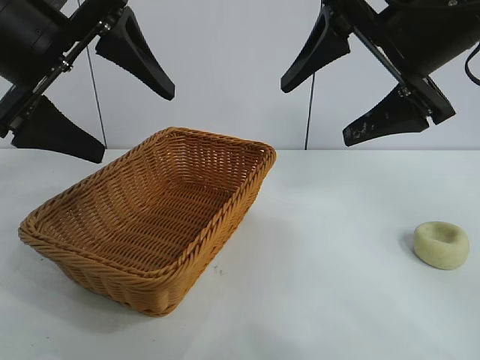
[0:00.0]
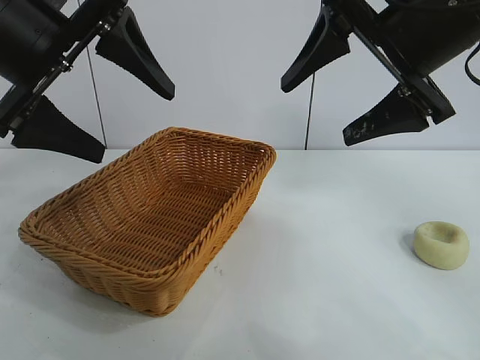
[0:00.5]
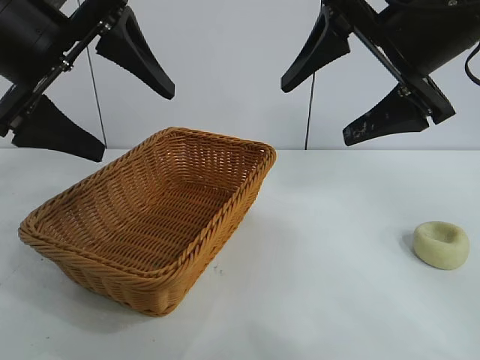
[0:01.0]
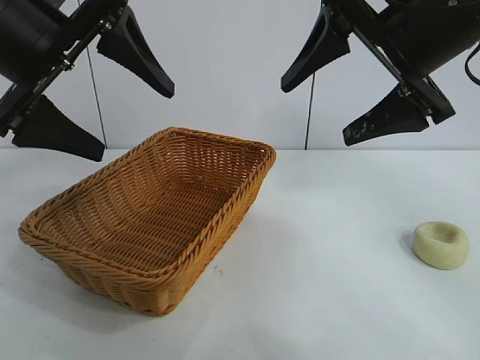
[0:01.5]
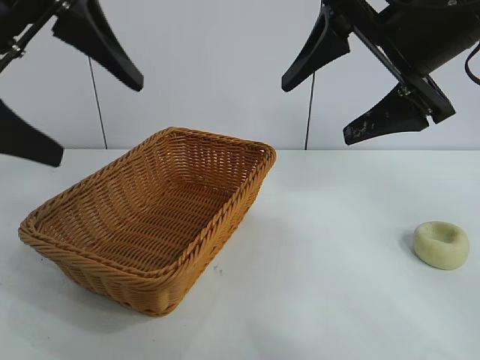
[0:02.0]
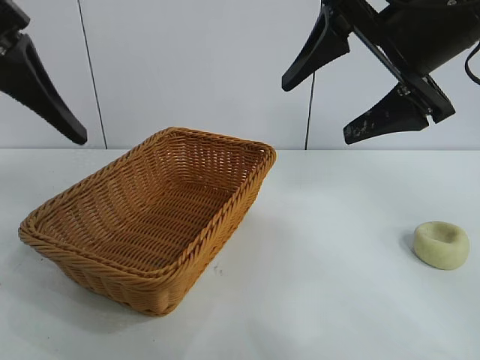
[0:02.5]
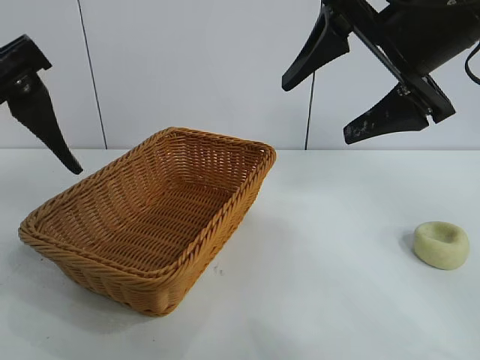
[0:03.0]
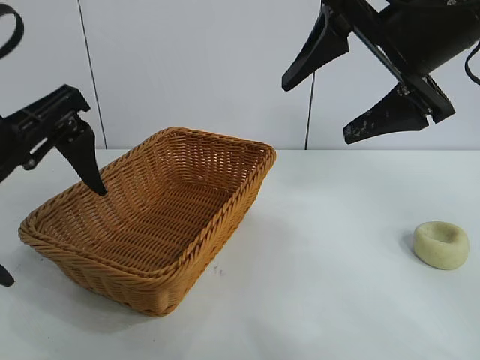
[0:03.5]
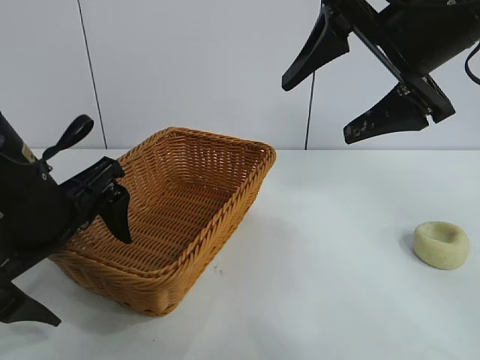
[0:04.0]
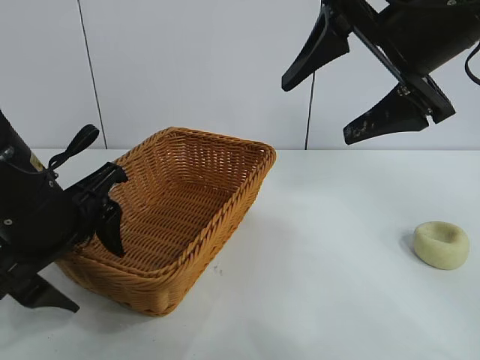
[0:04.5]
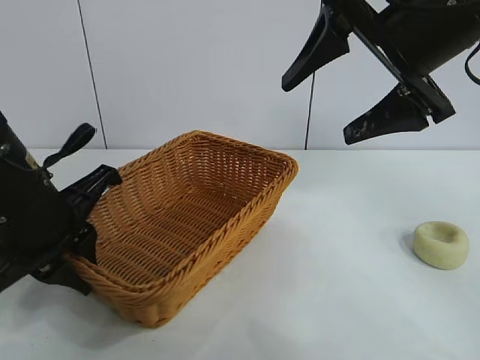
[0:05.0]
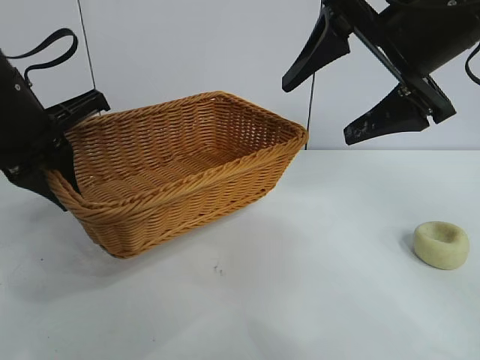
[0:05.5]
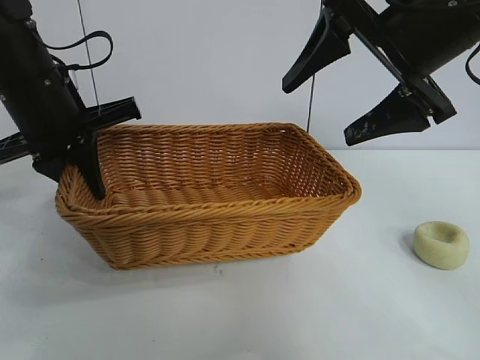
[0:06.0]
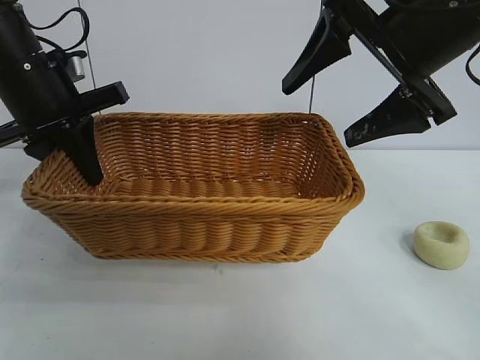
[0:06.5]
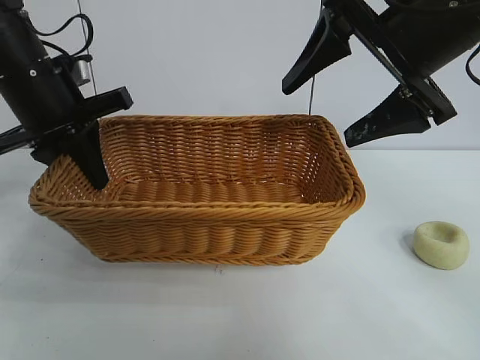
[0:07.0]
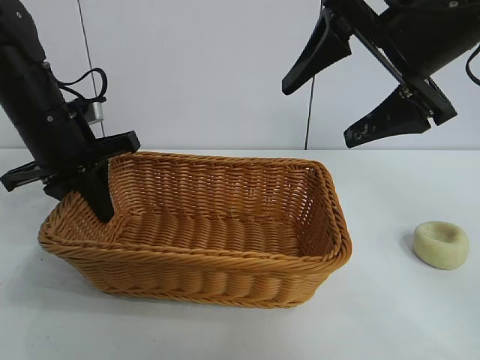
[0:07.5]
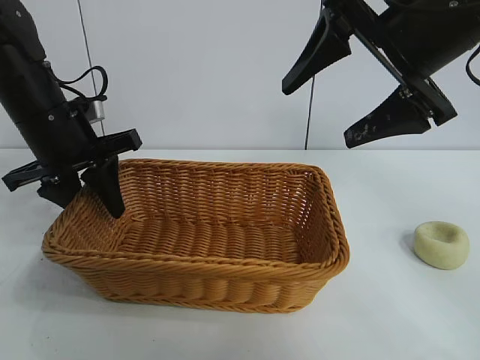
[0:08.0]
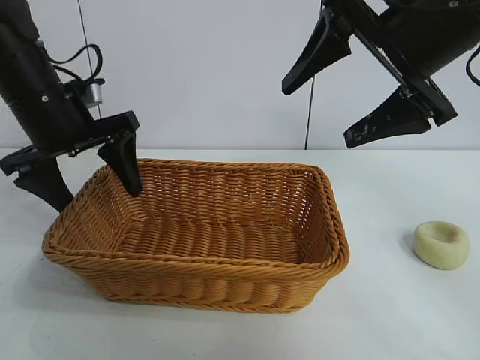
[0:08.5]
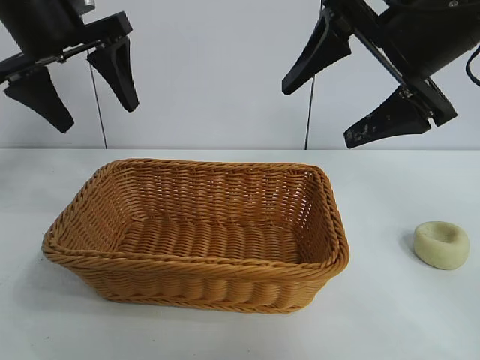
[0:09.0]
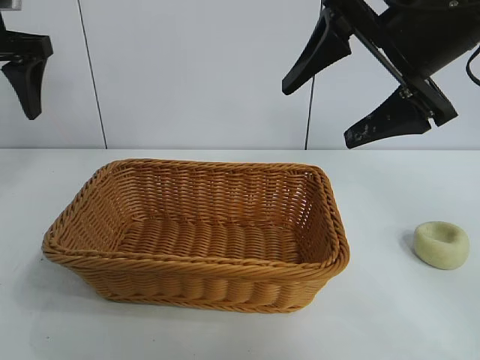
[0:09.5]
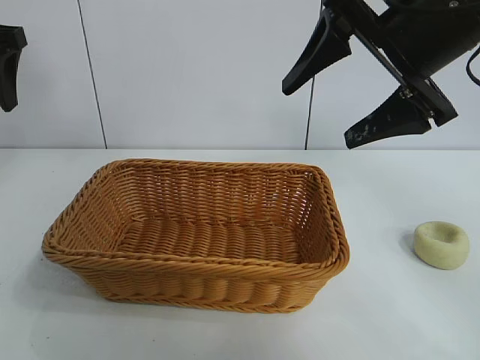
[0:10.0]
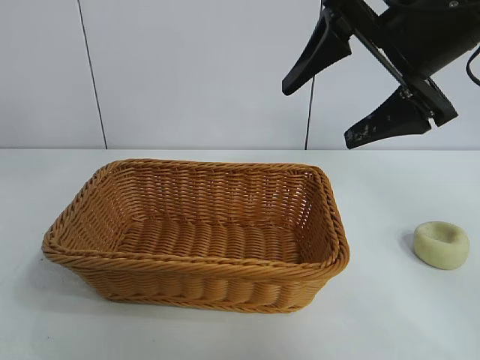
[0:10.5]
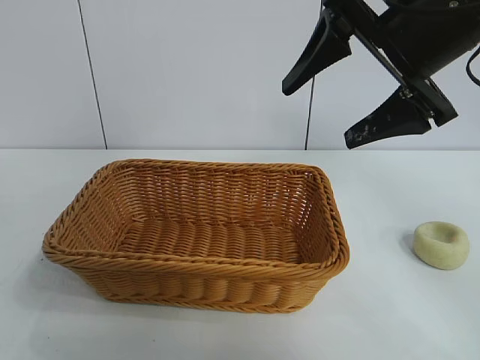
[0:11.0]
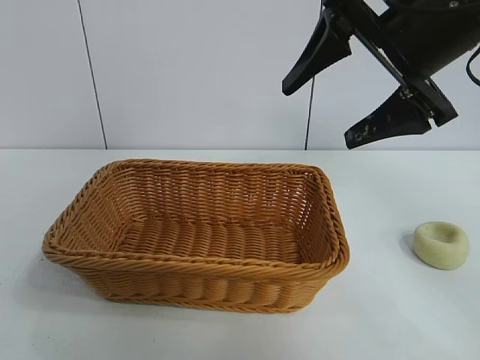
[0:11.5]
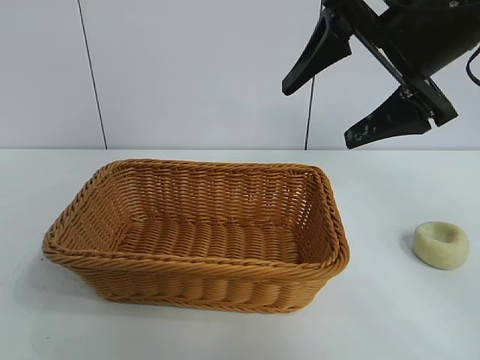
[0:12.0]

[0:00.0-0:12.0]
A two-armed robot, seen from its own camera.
Task of the whole recording: pick up the egg yolk pastry and put it into the basket.
Step, 0:01.5 to 0:04.5: Grasp the basket with left gripper.
Step, 0:05.5 to 0:08.0: Place the basket in the center of view with left gripper.

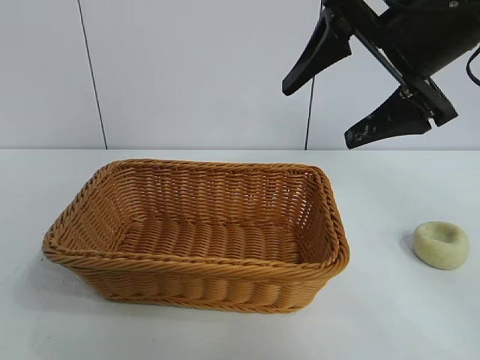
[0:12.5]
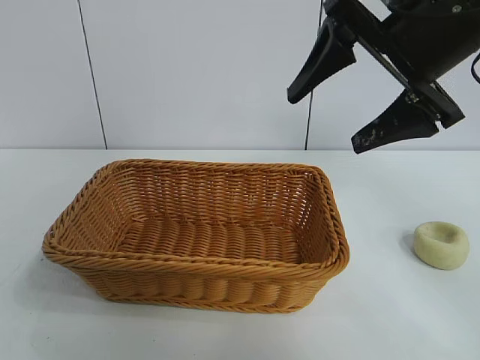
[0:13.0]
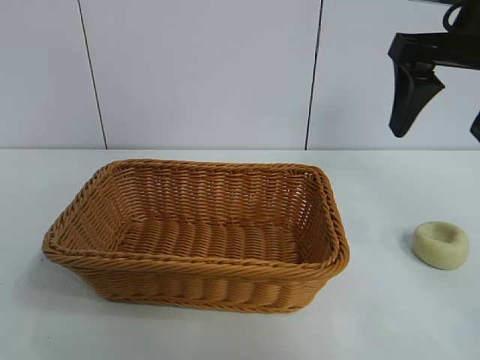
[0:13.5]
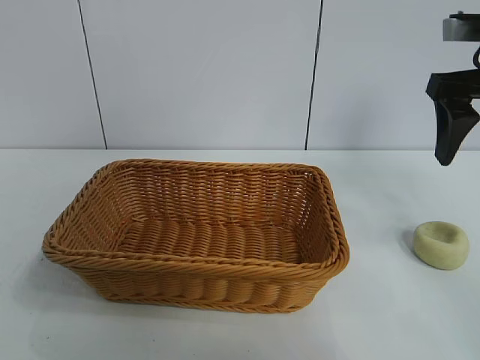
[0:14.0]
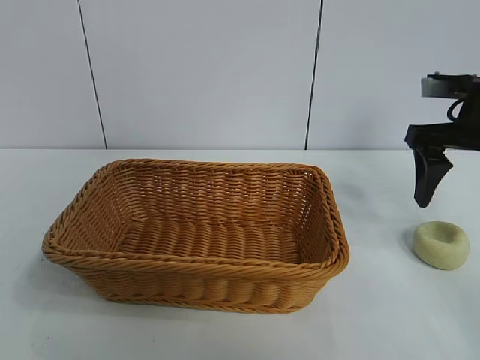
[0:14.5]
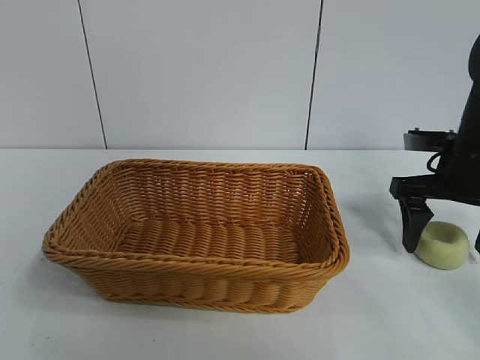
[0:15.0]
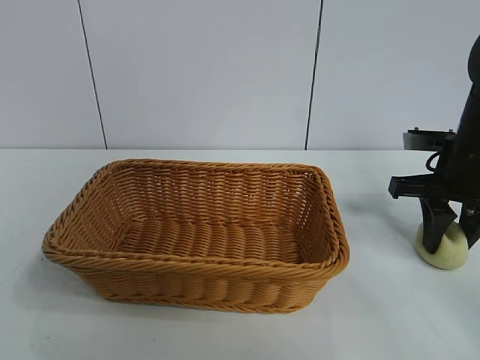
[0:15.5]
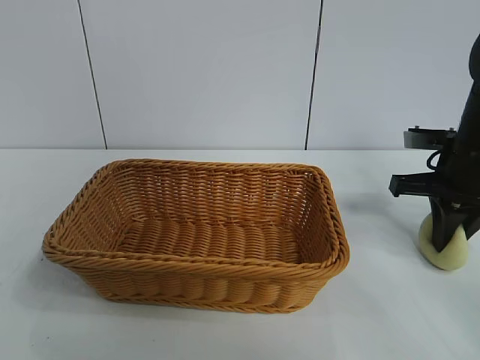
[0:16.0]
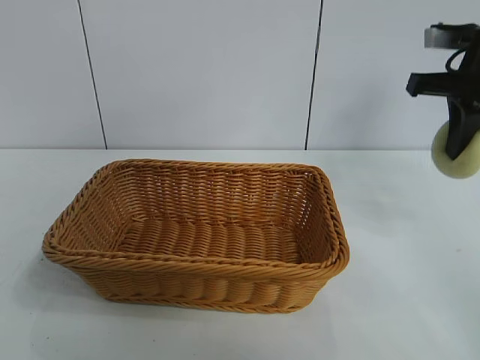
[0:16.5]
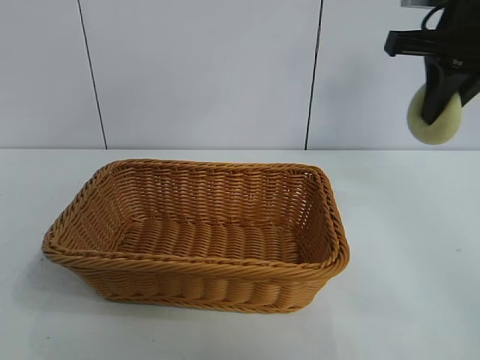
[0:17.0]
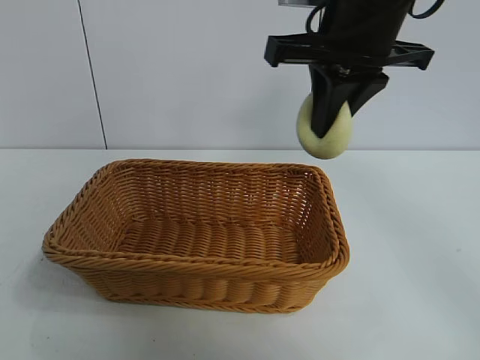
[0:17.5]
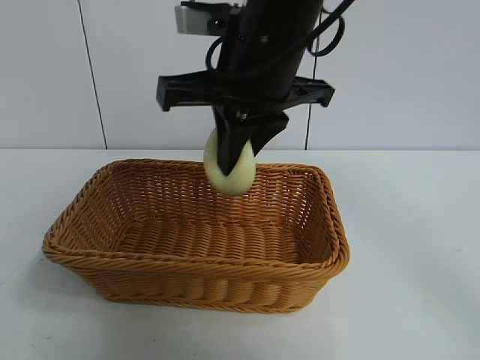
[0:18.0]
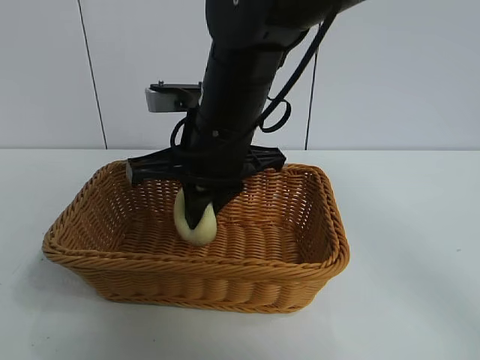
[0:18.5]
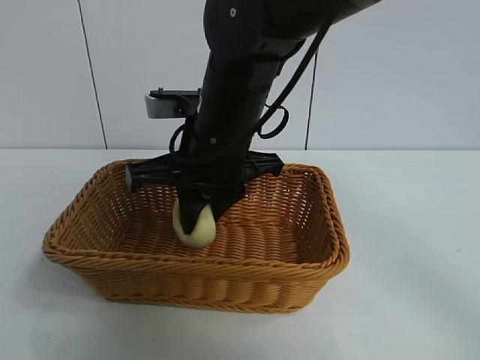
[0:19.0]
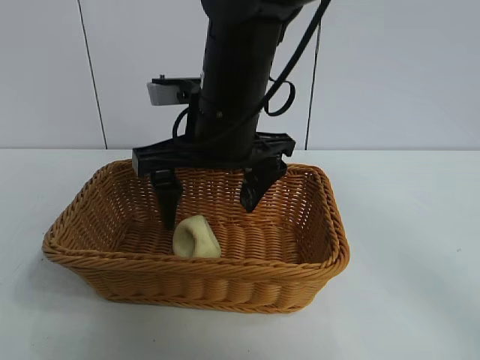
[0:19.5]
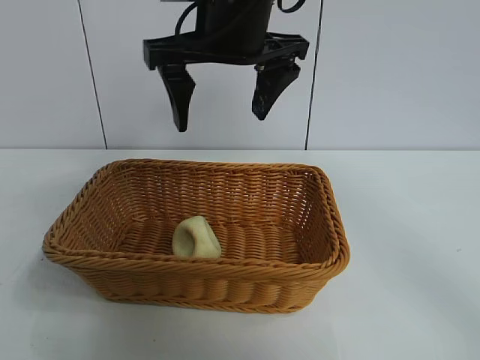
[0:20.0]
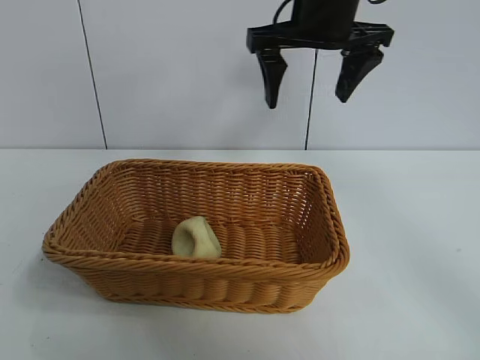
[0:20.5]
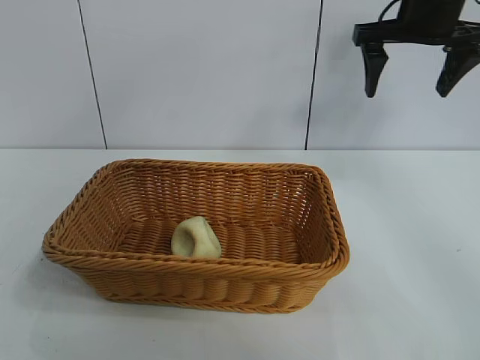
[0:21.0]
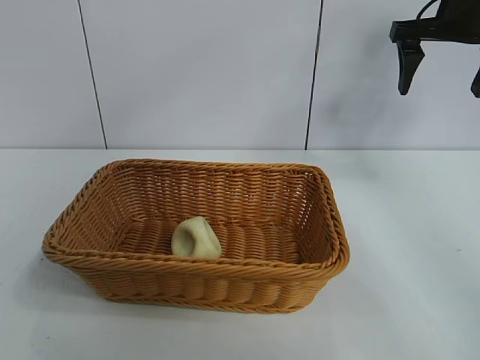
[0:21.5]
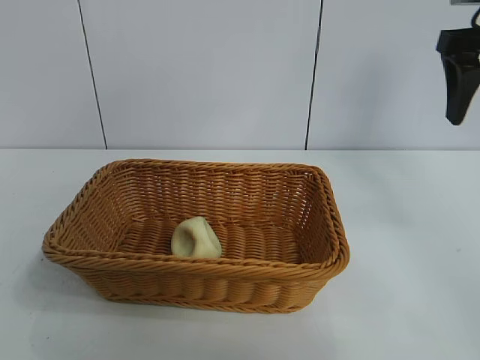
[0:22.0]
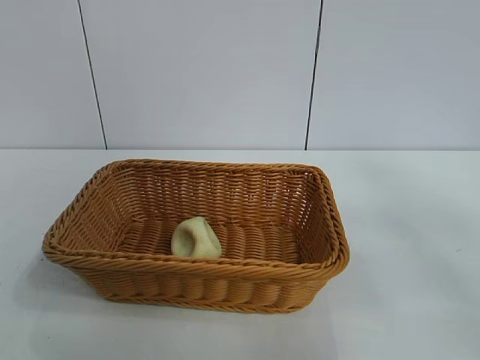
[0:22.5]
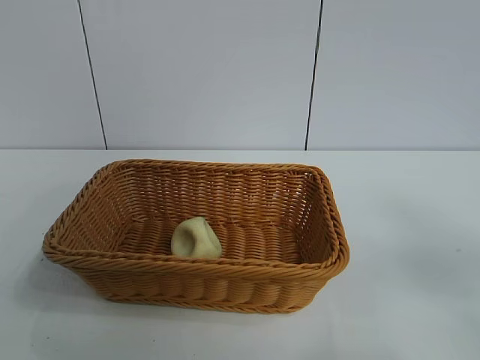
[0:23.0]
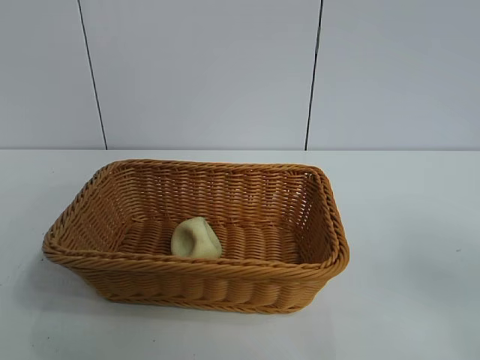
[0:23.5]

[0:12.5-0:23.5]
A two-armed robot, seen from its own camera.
Task of the whole recording: pick up the egg yolk pastry and put it into the basket.
Step, 0:12.5 to 0:15.5: Grasp egg yolk pastry with right gripper.
Step, 0:16.5 to 0:19.0: Place the egg yolk pastry in the basket with right gripper.
